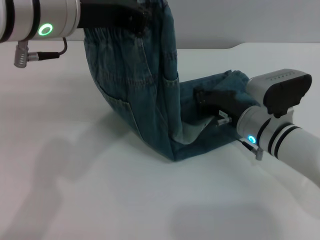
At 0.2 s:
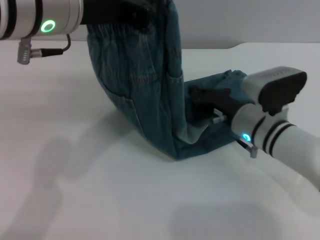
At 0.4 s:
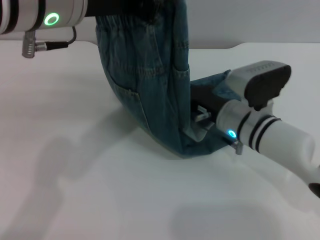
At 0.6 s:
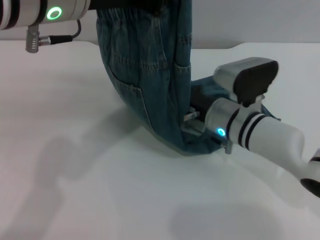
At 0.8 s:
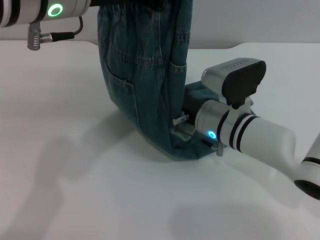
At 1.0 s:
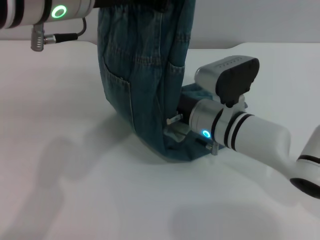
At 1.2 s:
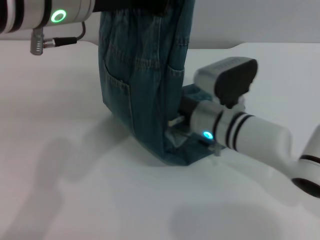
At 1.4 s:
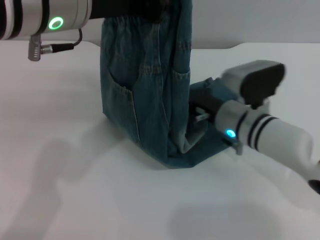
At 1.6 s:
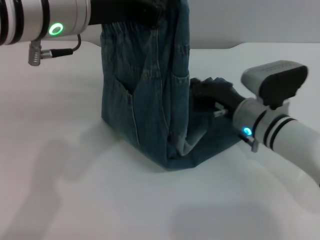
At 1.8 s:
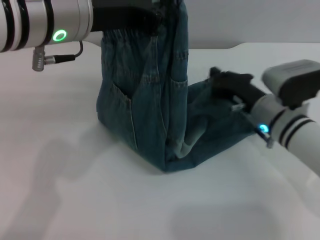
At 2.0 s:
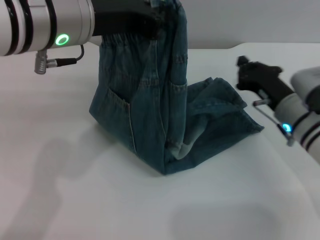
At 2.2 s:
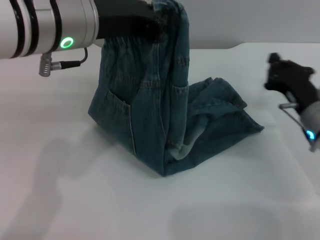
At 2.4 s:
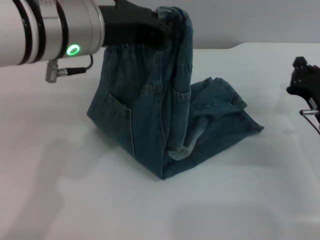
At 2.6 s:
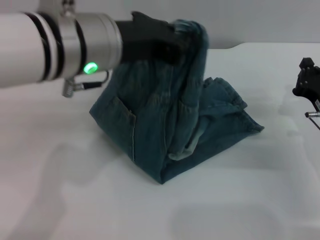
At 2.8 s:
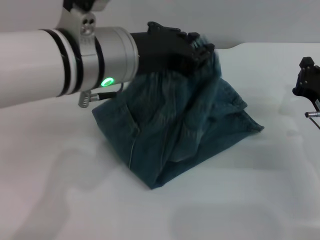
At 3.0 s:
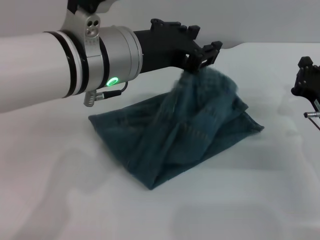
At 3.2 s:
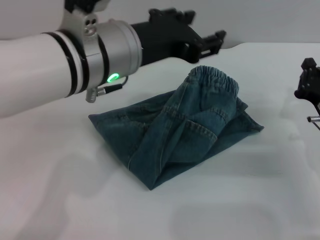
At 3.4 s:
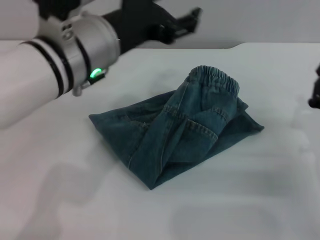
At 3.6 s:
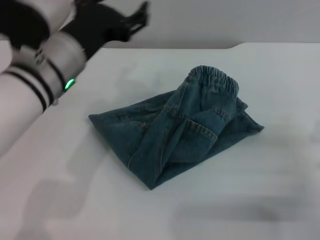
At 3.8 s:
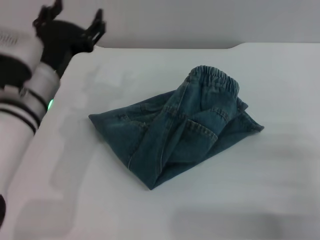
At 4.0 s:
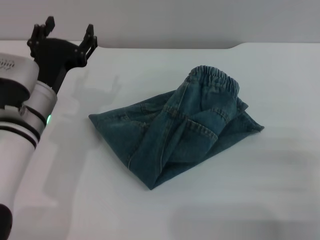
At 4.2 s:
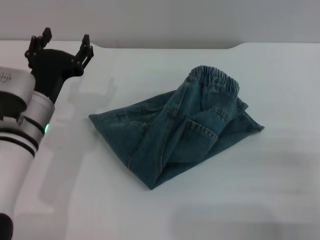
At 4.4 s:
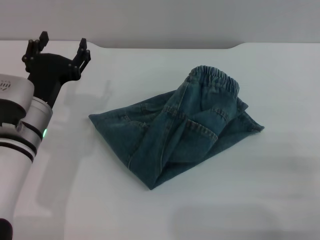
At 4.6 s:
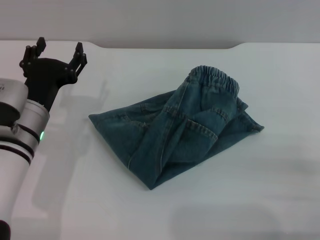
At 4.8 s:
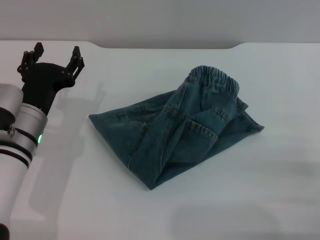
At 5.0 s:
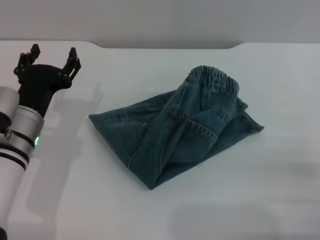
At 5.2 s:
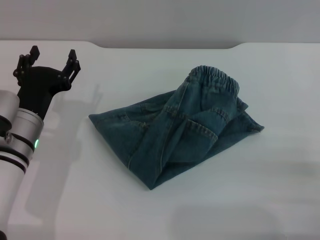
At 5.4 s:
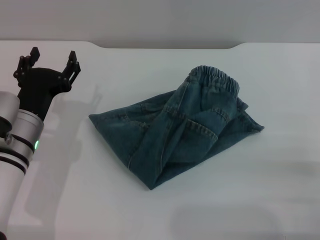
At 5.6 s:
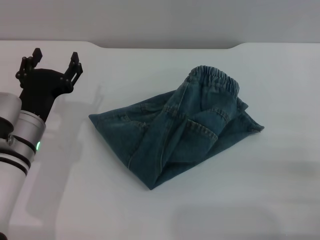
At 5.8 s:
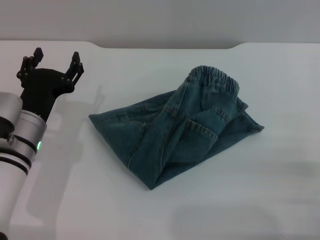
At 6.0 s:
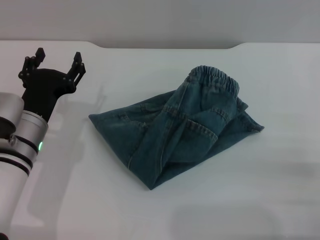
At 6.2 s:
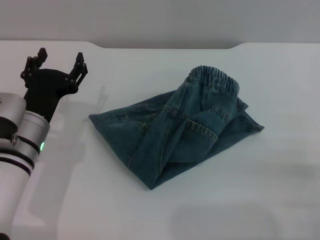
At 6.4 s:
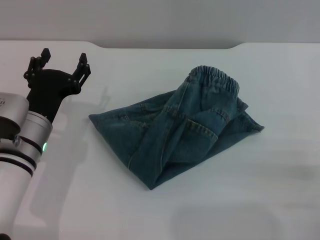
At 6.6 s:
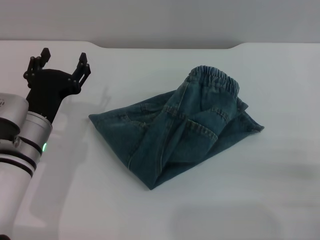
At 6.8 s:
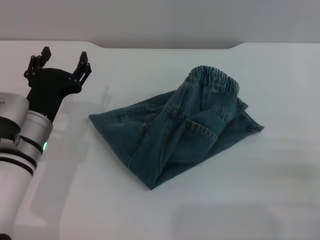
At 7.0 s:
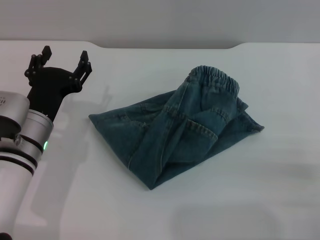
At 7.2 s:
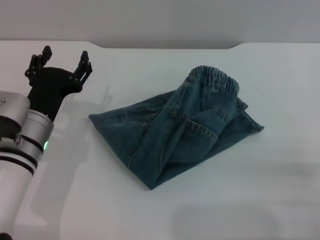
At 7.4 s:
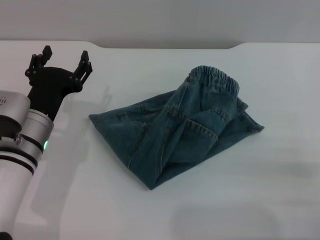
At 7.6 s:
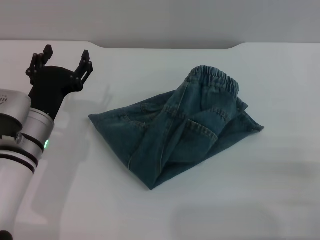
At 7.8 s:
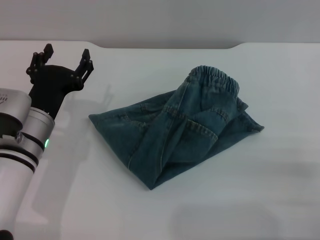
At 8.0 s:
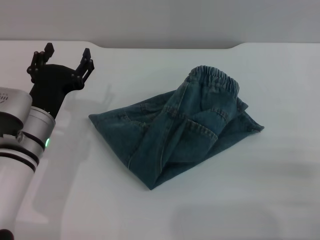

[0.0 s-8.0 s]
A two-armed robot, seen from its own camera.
Step, 0.0 to 3.2 s: Fold the pants from left to right with the left gripper.
0.0 to 1.6 s: The right gripper travels to the left and back again, about 10 cm each way.
1.6 to 3.2 s: The left gripper heads downward, covering approximately 5 cm, and opens. Meanwhile the right gripper heads to the right and backward, covering approximately 15 cm.
3.2 to 4.8 s: The right gripper heads backward, covering approximately 15 cm, and opens up. Meanwhile the left gripper moves downward and to the left, about 20 cm, and opens up.
4.8 to 8.0 s: Neither gripper changes place.
